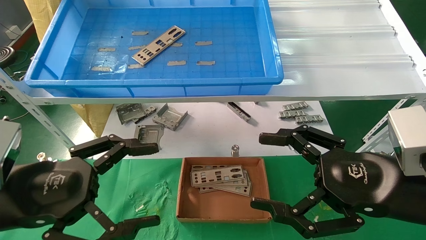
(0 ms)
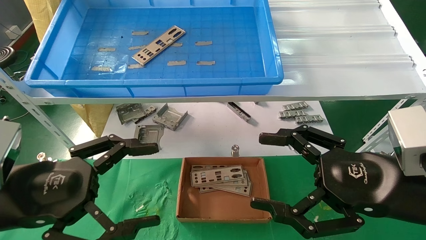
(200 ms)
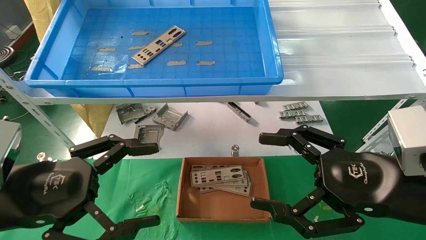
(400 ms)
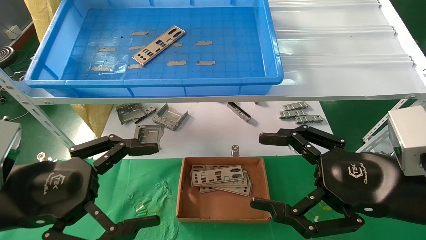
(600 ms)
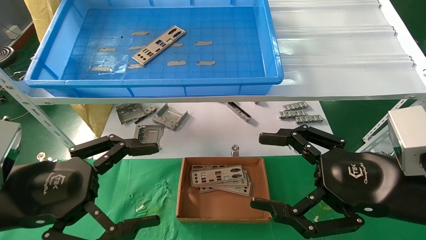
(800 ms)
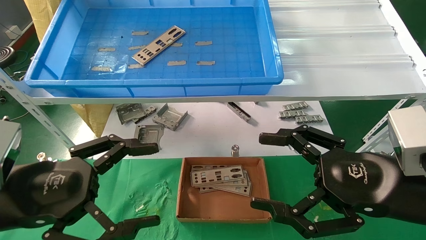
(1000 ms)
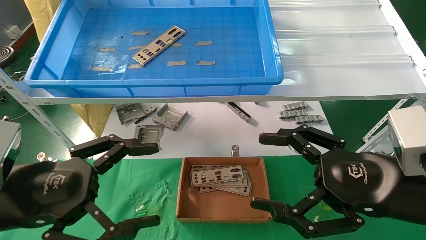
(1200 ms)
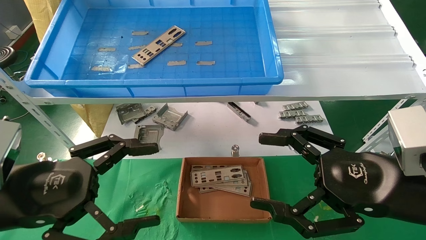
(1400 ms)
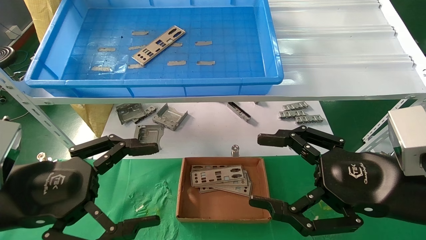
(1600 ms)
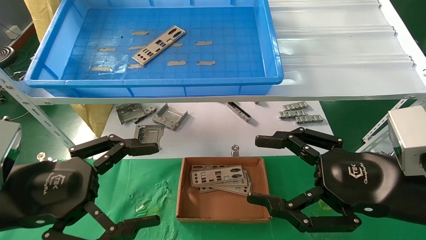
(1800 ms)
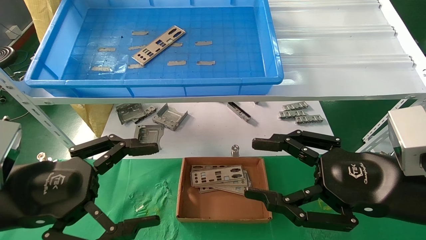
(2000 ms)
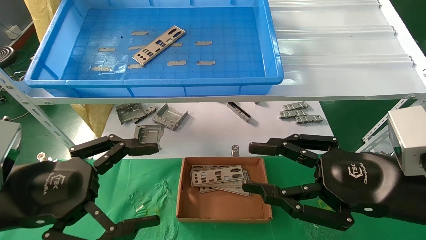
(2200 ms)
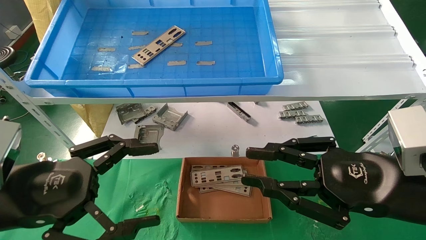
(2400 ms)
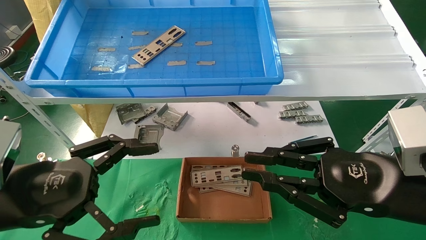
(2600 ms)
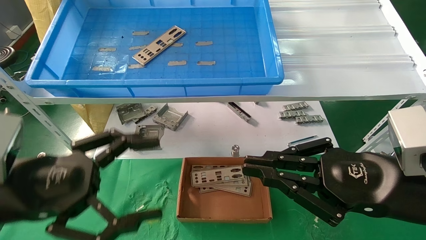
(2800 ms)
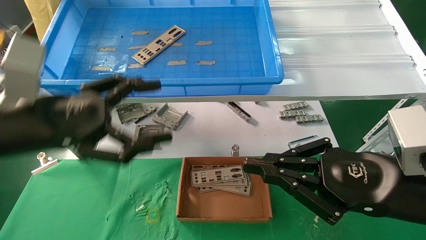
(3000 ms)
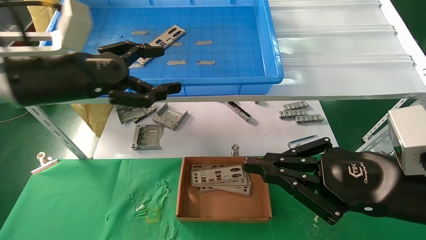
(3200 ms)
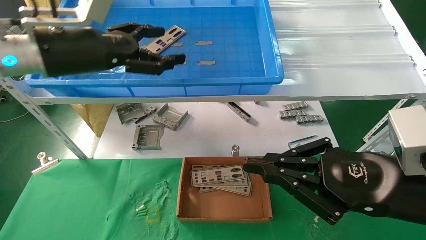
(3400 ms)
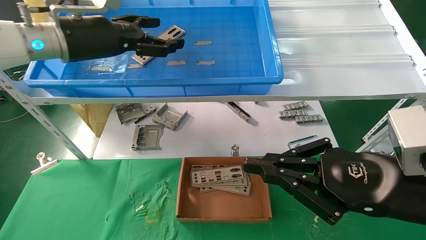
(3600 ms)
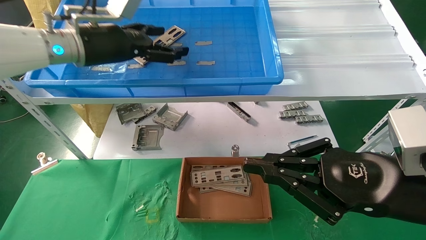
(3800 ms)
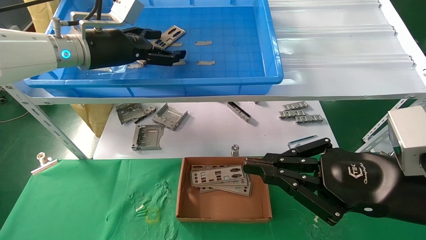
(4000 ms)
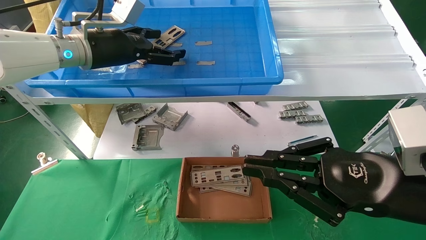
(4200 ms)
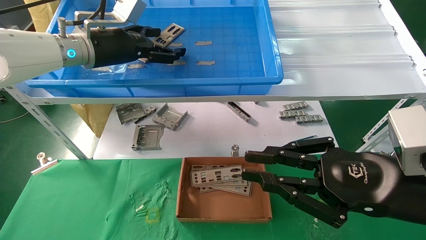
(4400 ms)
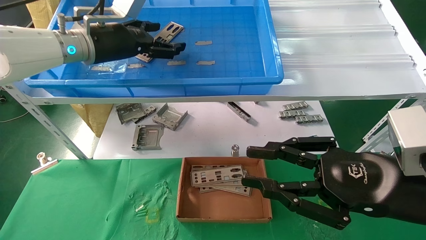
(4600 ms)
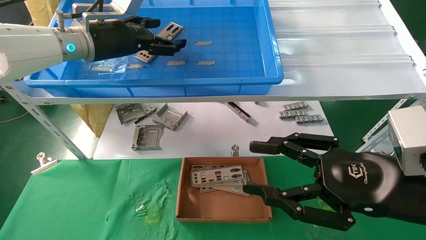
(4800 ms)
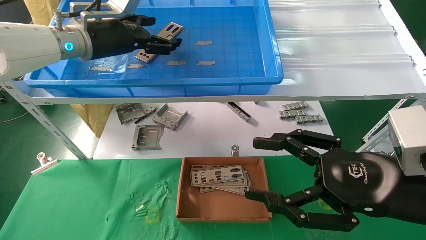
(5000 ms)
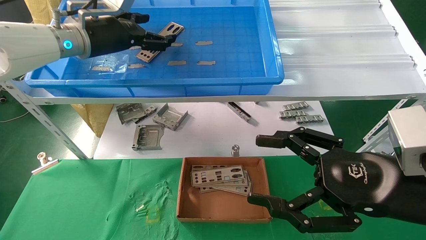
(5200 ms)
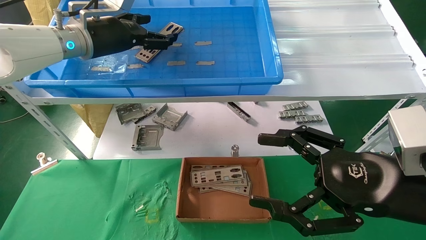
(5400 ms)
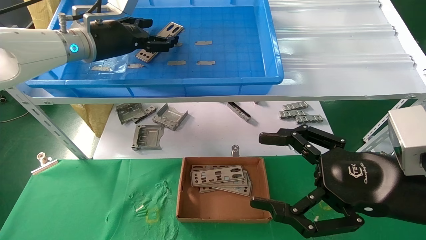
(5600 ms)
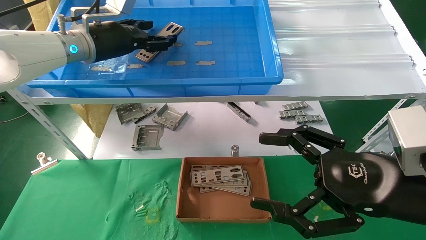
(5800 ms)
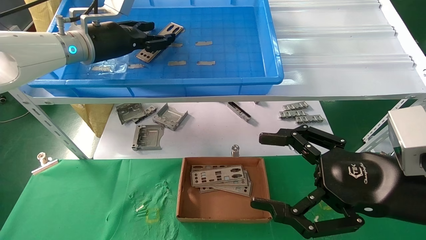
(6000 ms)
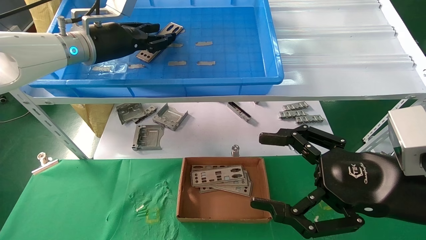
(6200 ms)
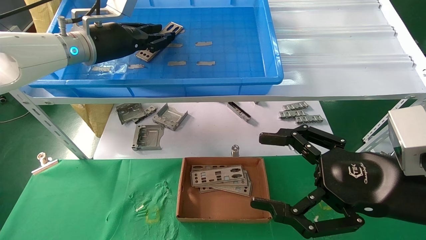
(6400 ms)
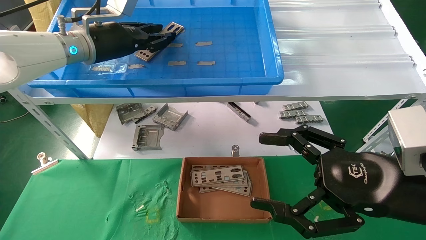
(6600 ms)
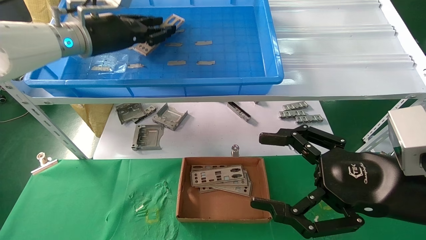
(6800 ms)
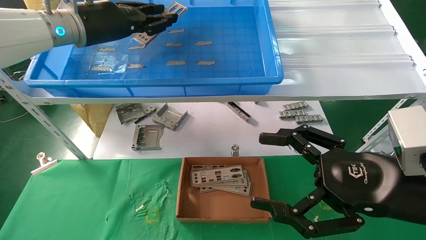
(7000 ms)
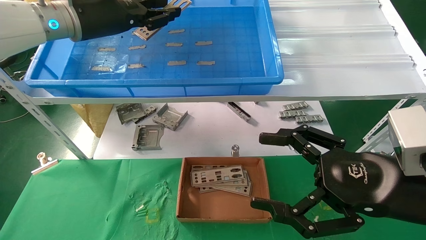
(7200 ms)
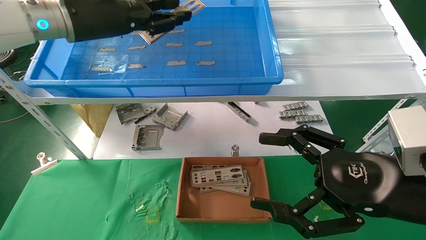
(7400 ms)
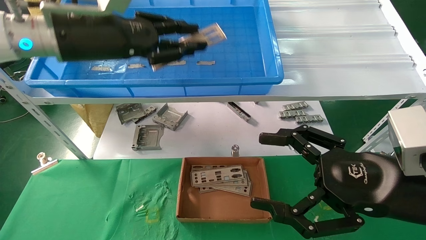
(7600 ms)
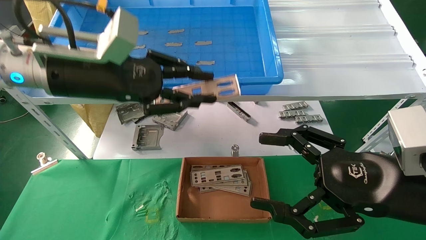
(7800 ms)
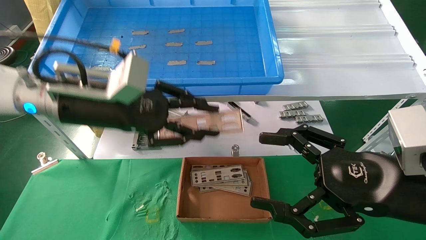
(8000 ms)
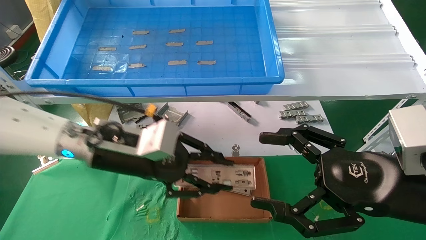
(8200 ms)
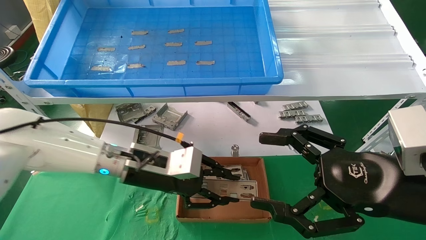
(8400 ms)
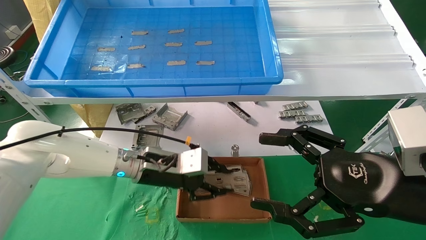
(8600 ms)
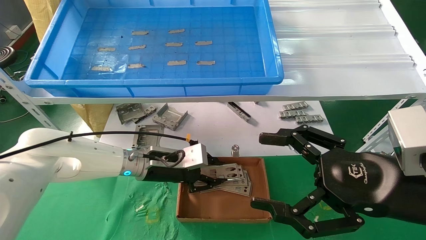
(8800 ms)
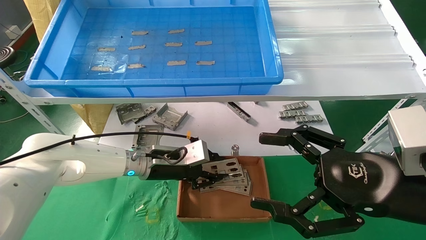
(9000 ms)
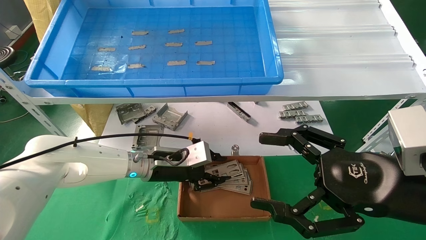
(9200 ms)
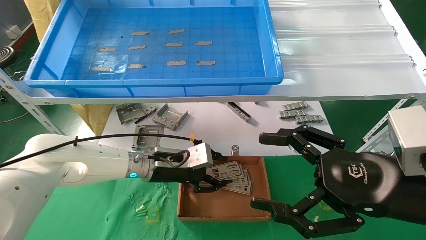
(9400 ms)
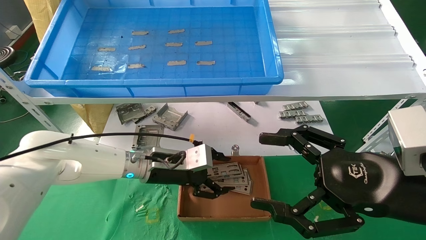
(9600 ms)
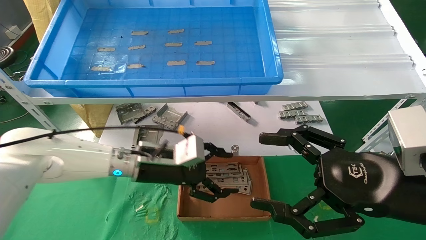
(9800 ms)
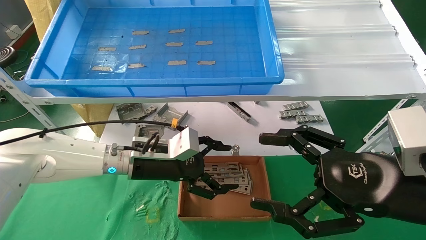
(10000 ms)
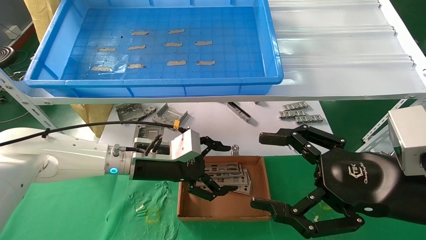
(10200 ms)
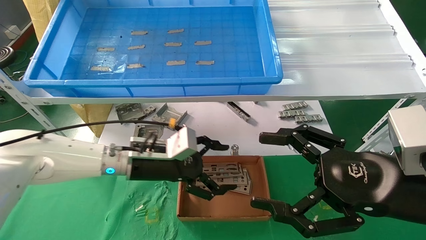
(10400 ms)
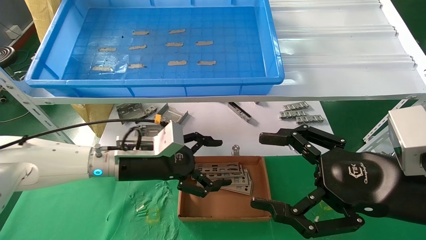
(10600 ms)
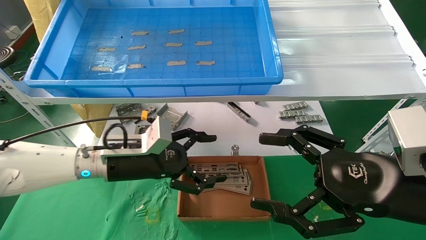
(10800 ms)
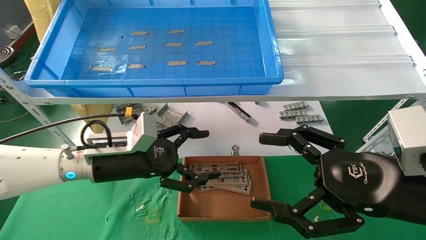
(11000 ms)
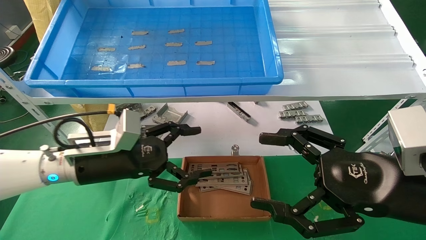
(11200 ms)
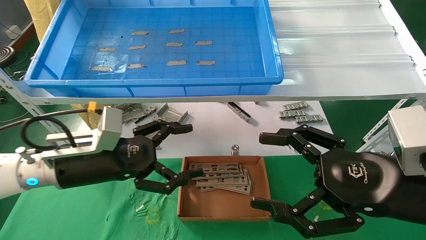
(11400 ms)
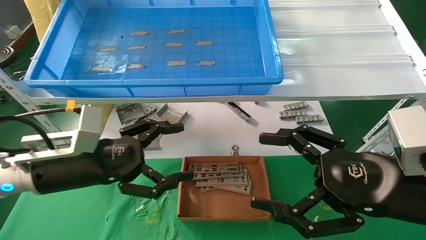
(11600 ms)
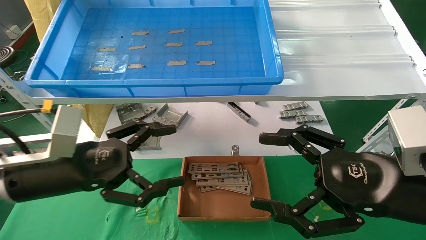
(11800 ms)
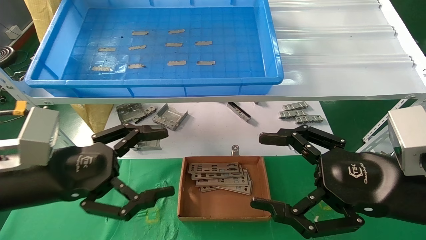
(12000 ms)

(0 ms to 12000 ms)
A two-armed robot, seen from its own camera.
Task of the whole recording: pick up the parts on the tray and put them in the cardboard box.
Step, 3200 ms - 6400 ms: Pick up the IO bracket from the container box.
Step, 6600 ms - 9400 ms: Place the IO bracket into the ingredient slot.
0 ms - 1600 ms: Neither gripper changes place.
1600 ms - 3000 ms: The right gripper closes up; the left gripper is displaced upward and forward by about 10 cm.
3000 ms - 4400 ms: The left gripper shifts roughly 20 cm forward and upward.
4400 ms - 6000 ms: The right gripper opens its fingers.
6000 ms - 7600 ms: The left gripper shifts roughly 10 cm backward, and closes up.
7600 ms - 9000 ms: The left gripper travels downward by about 25 cm.
9000 ms - 10400 ms: The left gripper changes place by roughly 5 cm, and opens its fingers.
10400 ms - 12000 ms: The left gripper is displaced backward and to the left by roughly 20 cm.

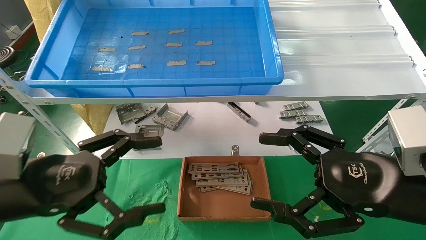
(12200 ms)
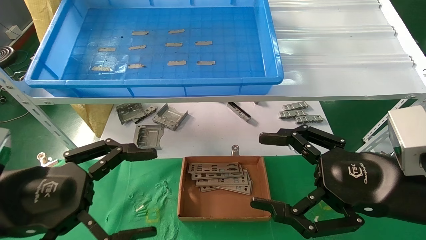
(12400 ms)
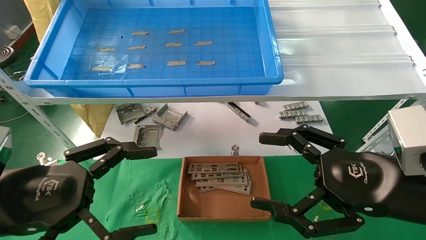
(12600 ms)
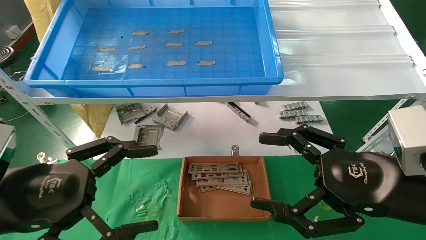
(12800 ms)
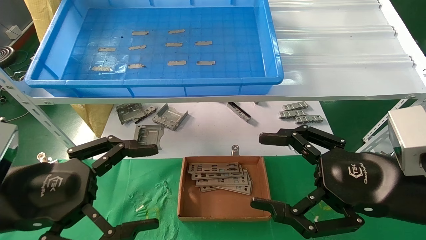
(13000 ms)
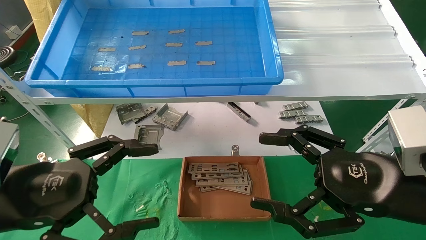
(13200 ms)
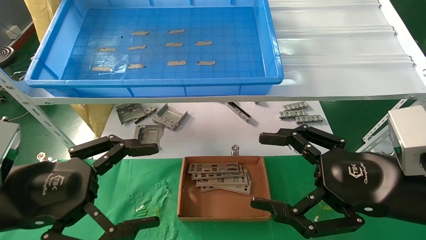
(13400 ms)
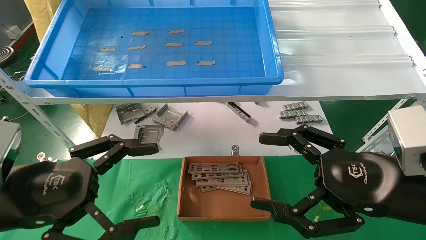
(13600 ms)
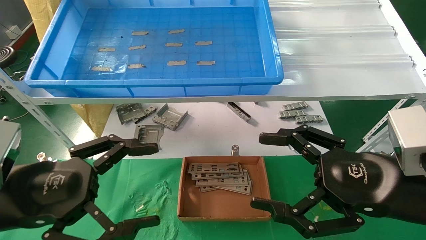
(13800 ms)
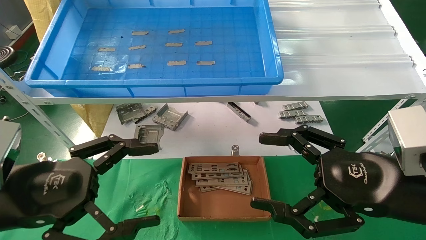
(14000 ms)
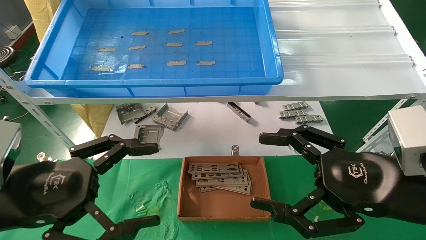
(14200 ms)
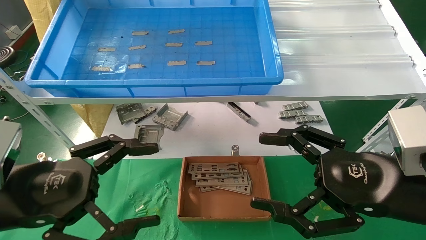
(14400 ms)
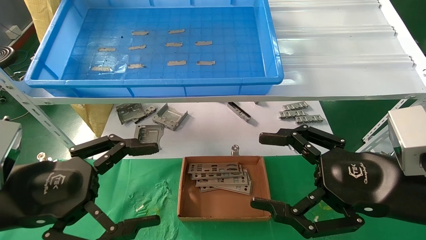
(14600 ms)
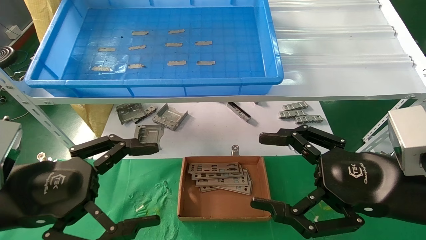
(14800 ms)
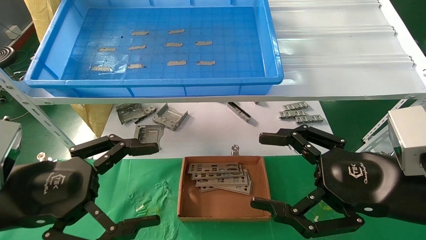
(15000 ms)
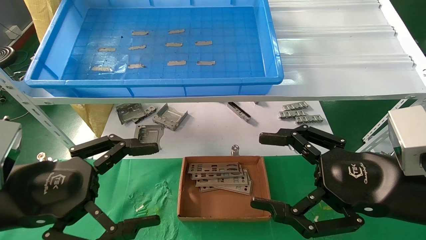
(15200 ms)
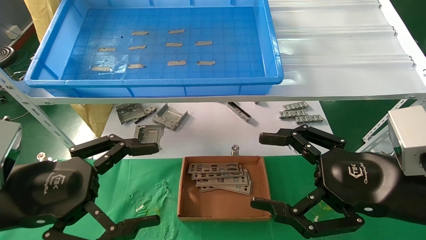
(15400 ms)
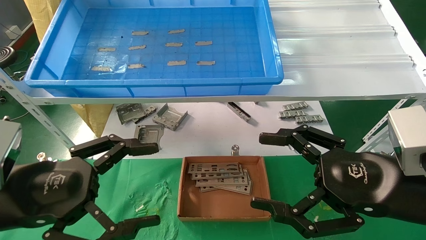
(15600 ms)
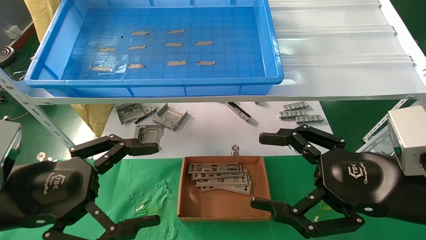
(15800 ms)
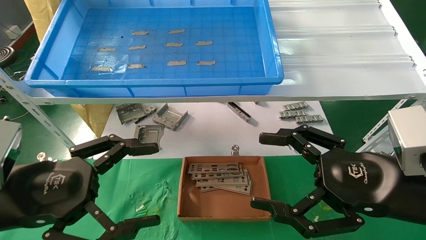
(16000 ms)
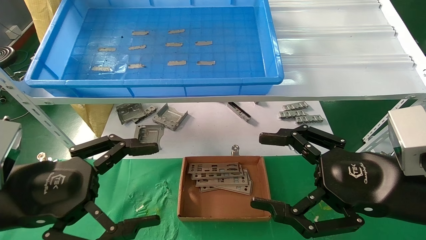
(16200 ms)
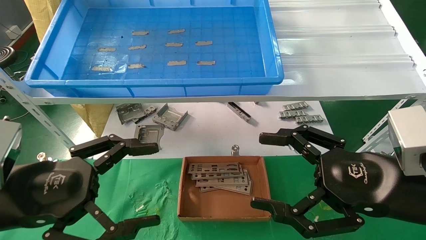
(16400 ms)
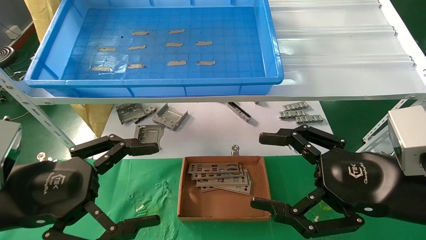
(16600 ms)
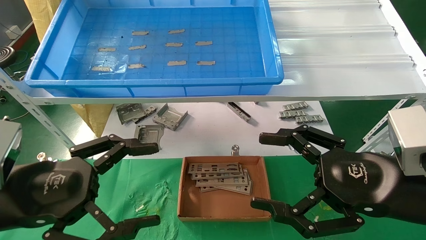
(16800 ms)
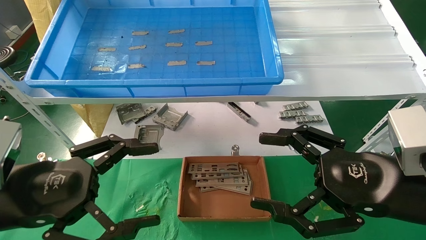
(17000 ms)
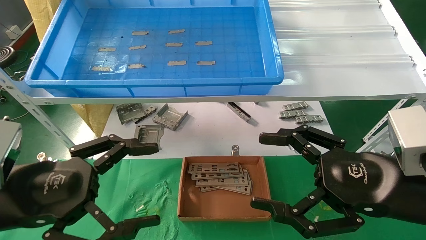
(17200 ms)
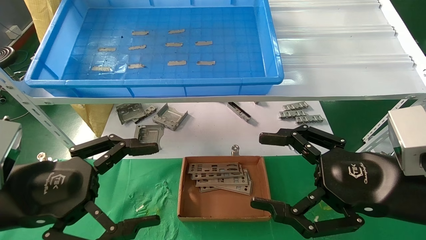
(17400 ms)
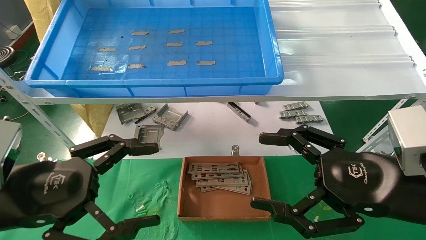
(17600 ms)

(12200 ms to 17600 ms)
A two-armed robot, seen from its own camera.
Task of the whole recording: pick up the parts on the tray and put them in the cardboard box.
12200 ms - 13600 ms: The grippers move only a little.
13600 ms - 17600 ms: The two grippers keep their place.
